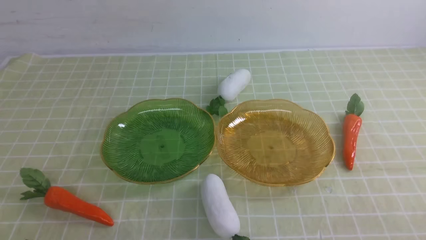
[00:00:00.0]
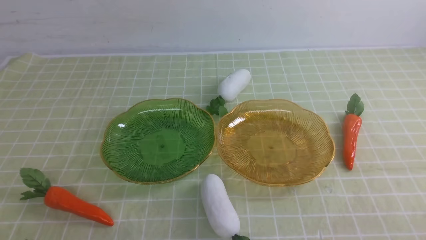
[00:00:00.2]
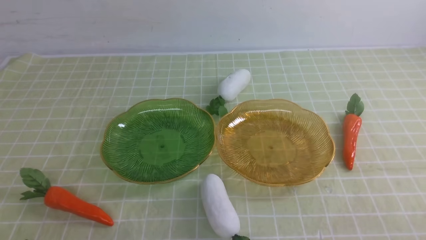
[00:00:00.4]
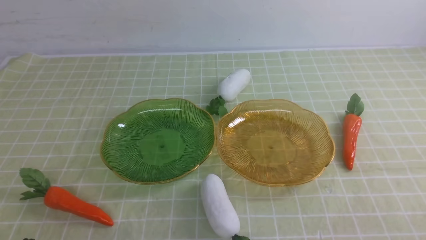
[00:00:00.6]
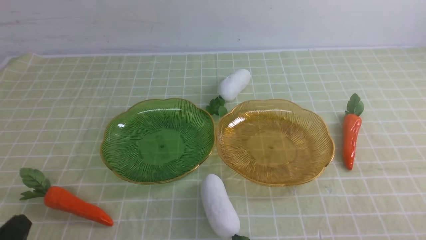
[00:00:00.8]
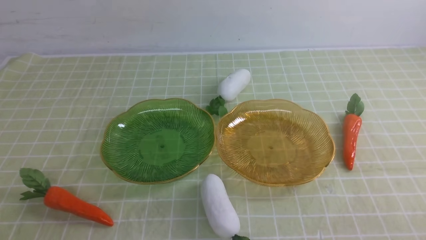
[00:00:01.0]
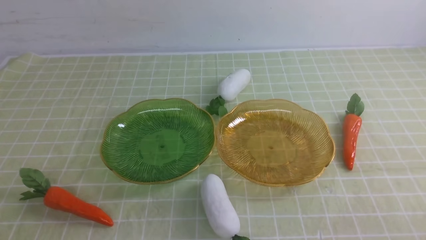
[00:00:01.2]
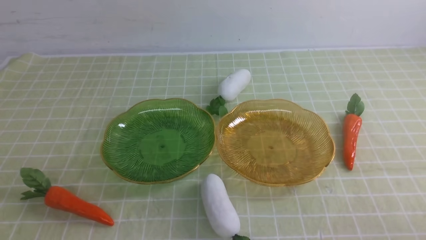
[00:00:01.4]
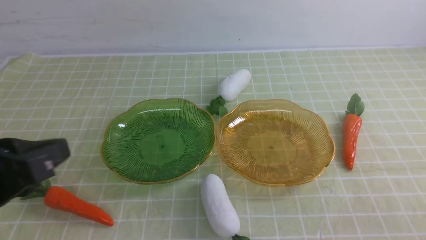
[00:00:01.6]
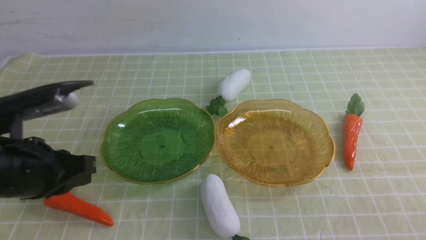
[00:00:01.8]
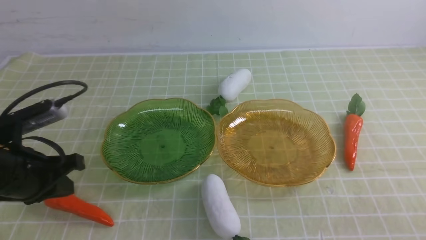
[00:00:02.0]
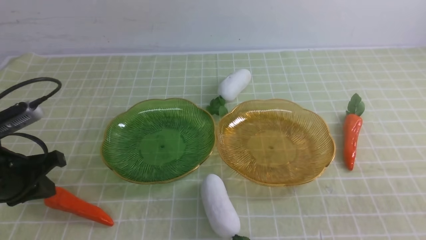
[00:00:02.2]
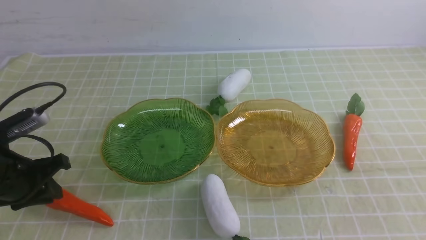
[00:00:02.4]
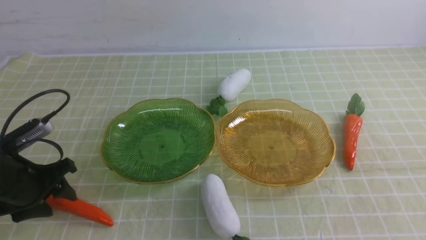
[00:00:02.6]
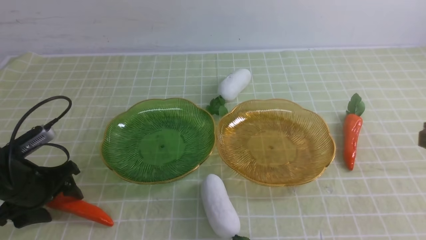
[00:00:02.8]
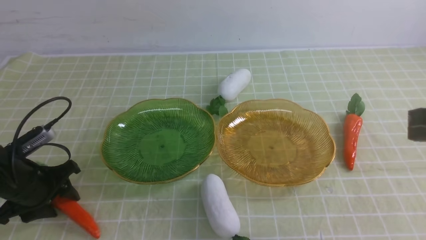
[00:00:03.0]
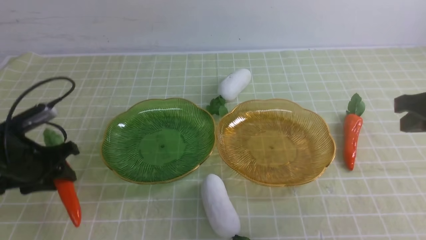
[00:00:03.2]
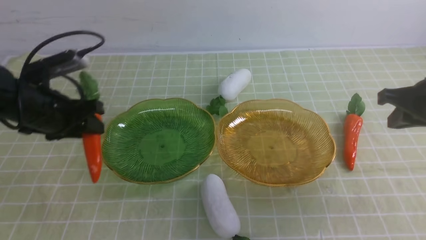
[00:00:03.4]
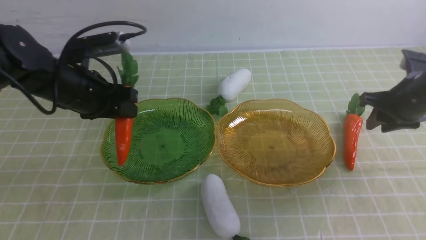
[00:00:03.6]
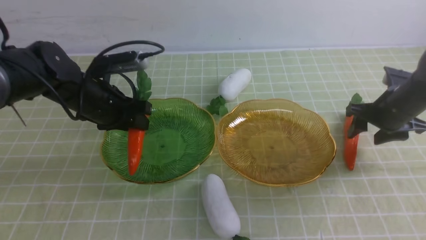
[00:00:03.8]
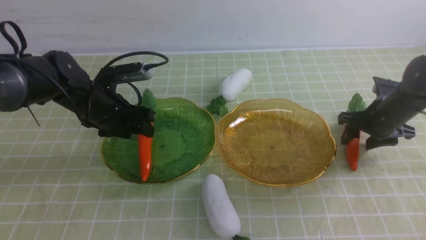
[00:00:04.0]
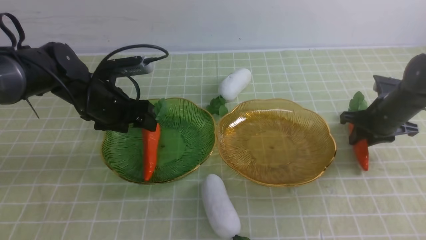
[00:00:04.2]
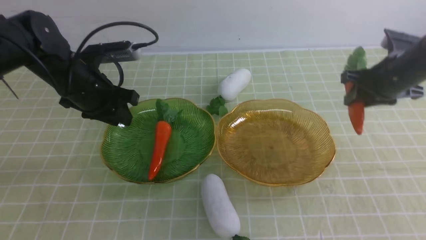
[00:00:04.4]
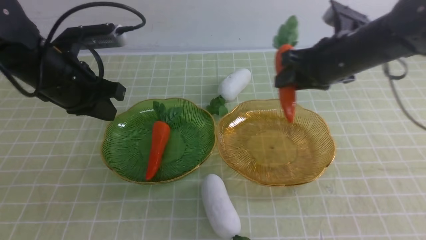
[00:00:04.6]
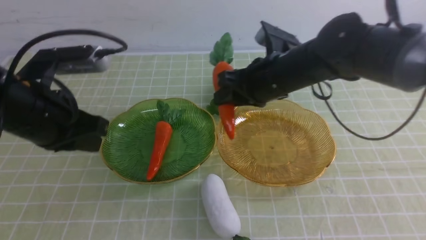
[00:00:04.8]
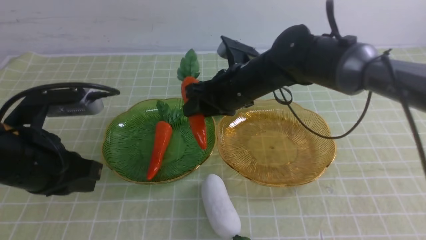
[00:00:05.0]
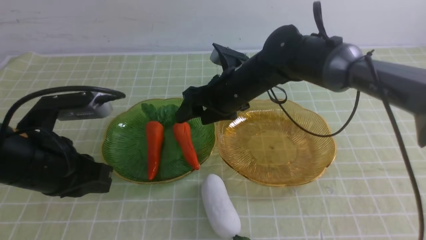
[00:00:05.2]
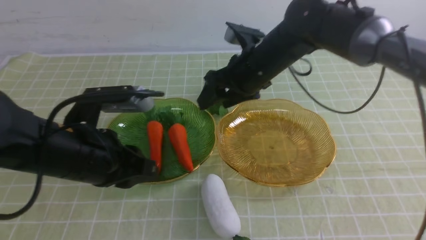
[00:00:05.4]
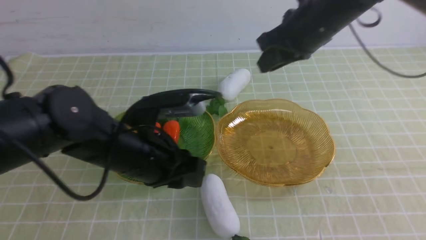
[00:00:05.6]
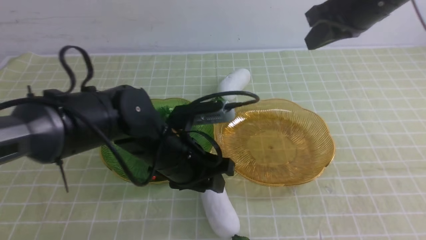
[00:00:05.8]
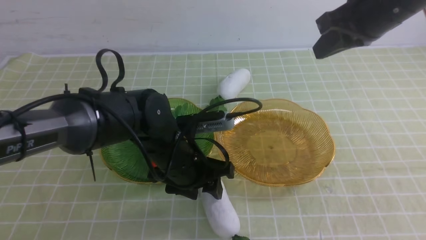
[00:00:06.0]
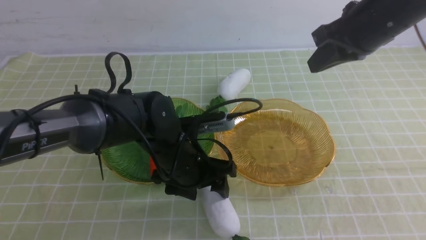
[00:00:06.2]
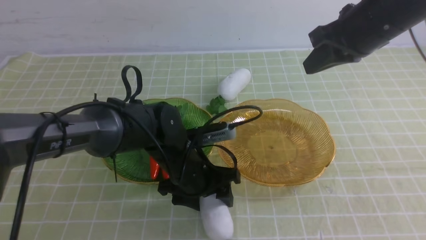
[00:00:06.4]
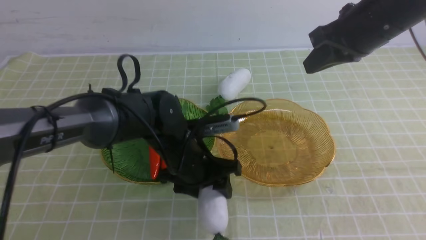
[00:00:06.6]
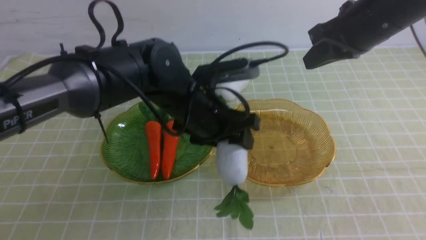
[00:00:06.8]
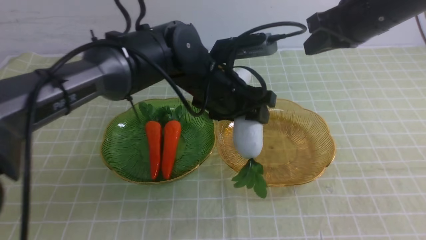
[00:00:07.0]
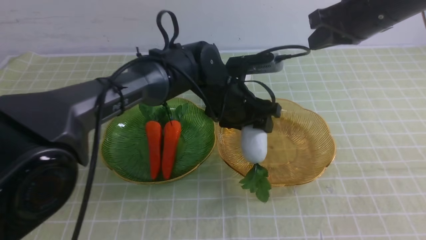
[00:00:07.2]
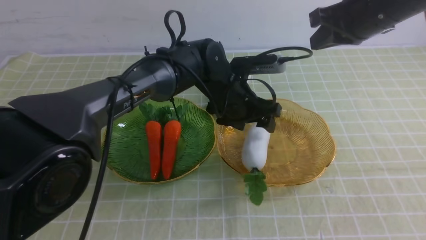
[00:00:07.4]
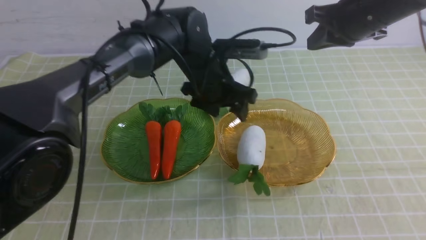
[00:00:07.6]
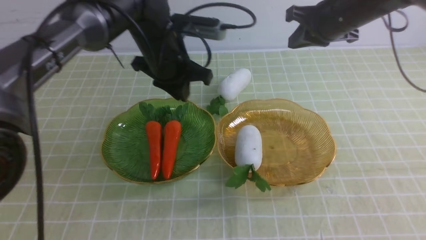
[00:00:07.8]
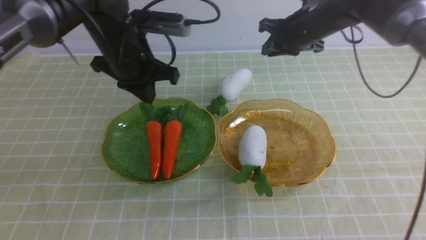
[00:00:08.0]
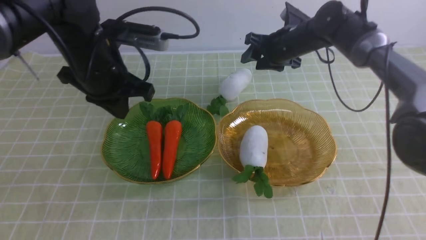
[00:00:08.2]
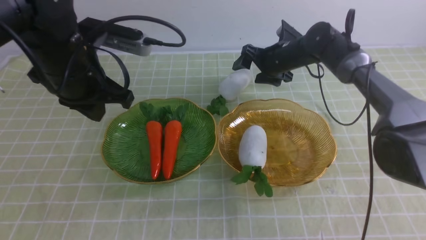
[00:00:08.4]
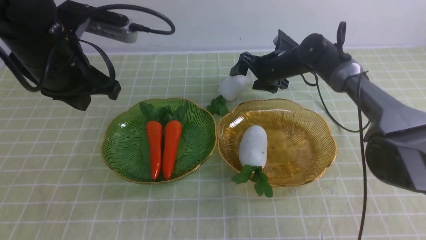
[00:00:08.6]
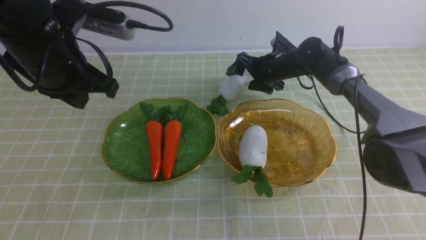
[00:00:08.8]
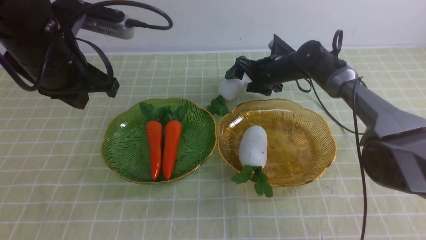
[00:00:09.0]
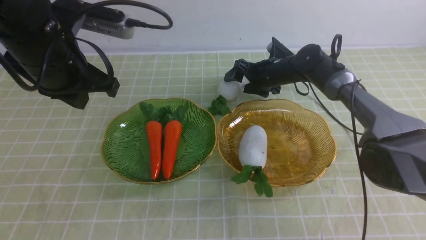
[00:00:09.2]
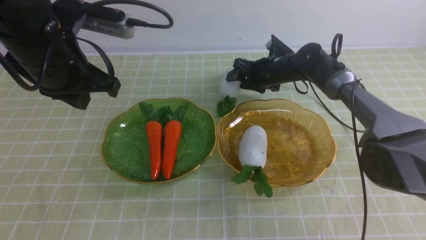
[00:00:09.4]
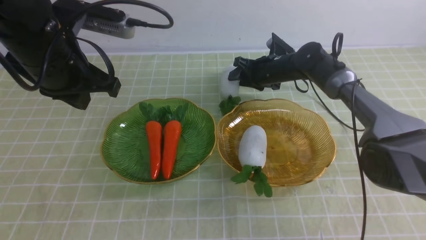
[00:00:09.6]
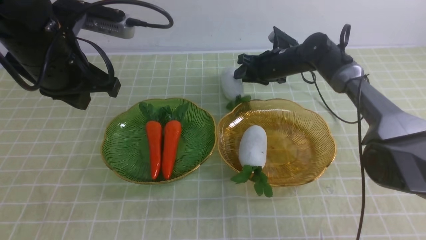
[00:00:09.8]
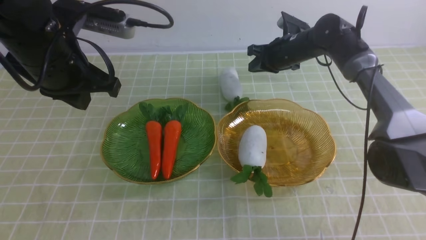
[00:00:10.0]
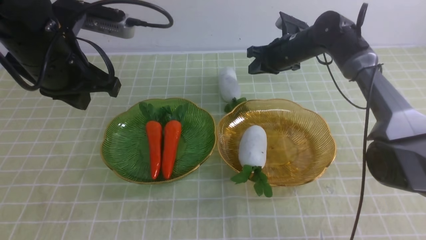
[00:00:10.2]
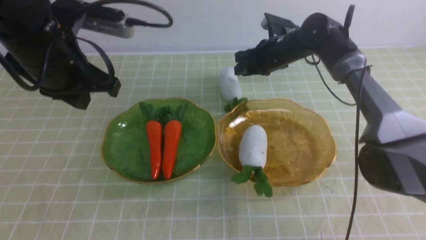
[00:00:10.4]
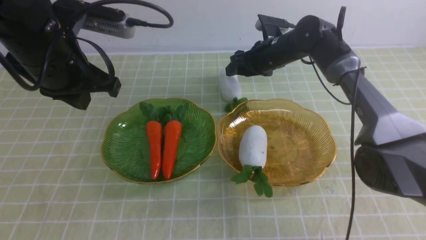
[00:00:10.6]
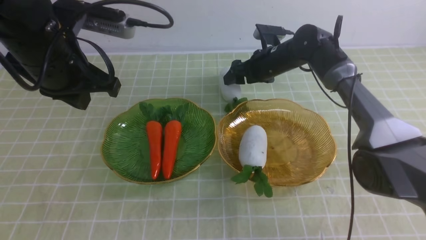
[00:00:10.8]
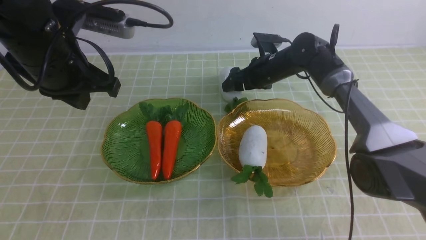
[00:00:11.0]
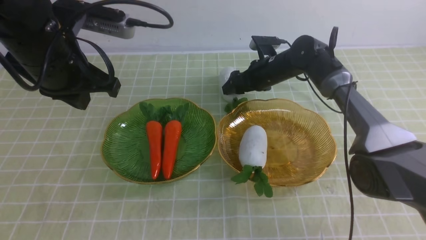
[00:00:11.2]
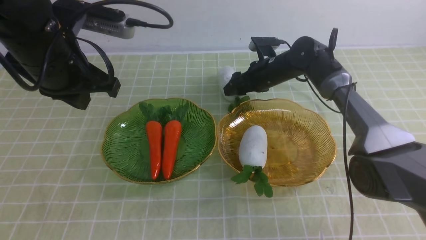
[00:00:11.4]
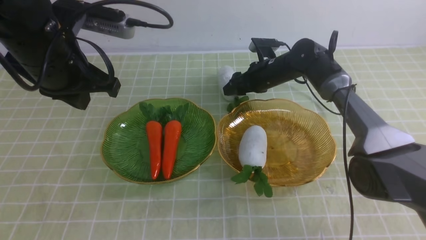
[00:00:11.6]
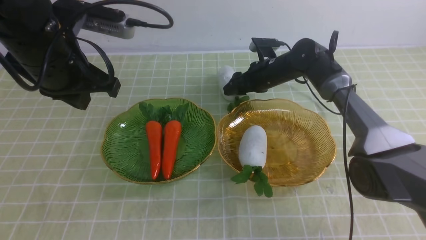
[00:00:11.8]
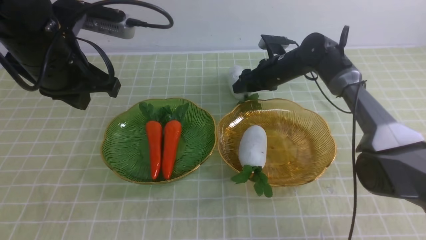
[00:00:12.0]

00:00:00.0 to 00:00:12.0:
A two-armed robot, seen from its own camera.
Step, 00:00:00.0 to 00:00:04.0: use the left arm to grab a carrot and put it into the left plate.
Step, 00:00:04.2 to 00:00:05.0: use the right arm to grab a carrot and put it into the left plate.
Step, 00:00:05.2 to 00:00:07.2: use the left arm to grab a radish and put it into the right plate.
00:00:00.0 to 00:00:01.6: The left gripper heads upward and forward, covering roughly 20 cm.
00:00:01.6 to 00:00:03.0: The left gripper travels downward, forward and to the left by roughly 20 cm, and opens.
00:00:03.0 to 00:00:04.4: The left gripper goes roughly 15 cm upward, to the right and forward, and closes; the right gripper is displaced forward by about 15 cm, and opens.
00:00:04.4 to 00:00:06.0: The right gripper goes about 10 cm upward, moves roughly 20 cm to the left and comes back, and closes. Meanwhile the left gripper is displaced to the right, downward and backward by about 20 cm, and opens.
00:00:06.0 to 00:00:07.6: The left gripper travels forward and upward by roughly 15 cm. The right gripper travels forward by about 5 cm.
00:00:07.6 to 00:00:09.0: The left gripper is displaced to the left, backward and upward by approximately 20 cm, and closes; the right gripper moves downward and forward, some 25 cm, and opens.
00:00:09.0 to 00:00:10.4: The right gripper is displaced upward by some 5 cm, and closes up.
00:00:10.4 to 00:00:12.0: The grippers move only a little.

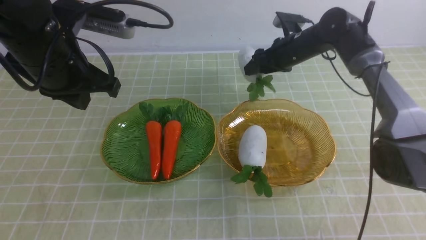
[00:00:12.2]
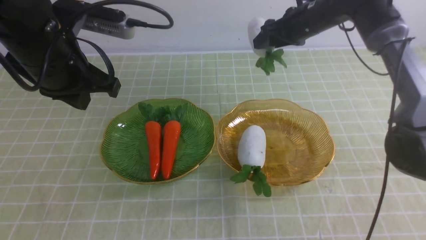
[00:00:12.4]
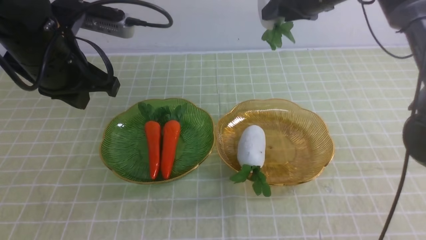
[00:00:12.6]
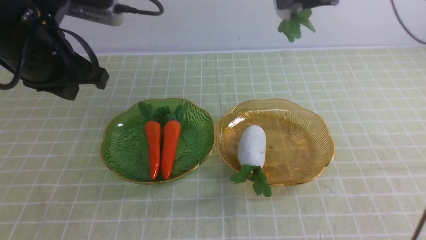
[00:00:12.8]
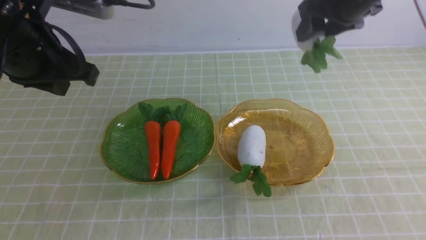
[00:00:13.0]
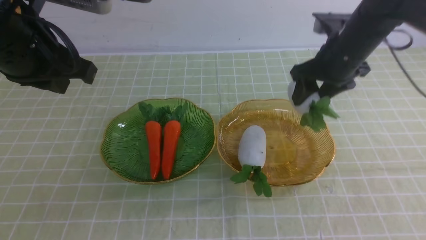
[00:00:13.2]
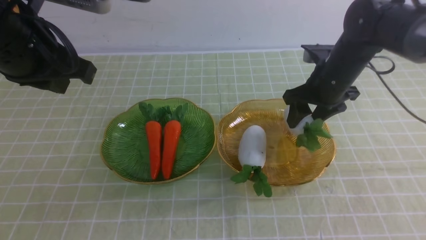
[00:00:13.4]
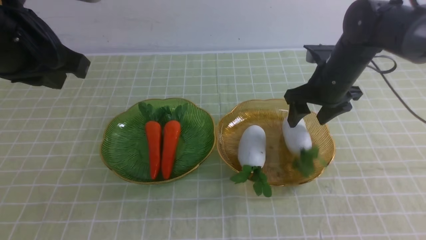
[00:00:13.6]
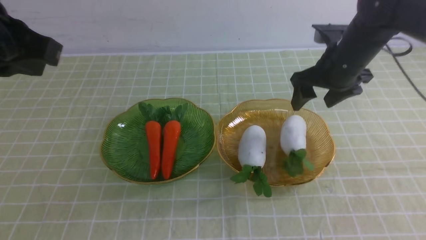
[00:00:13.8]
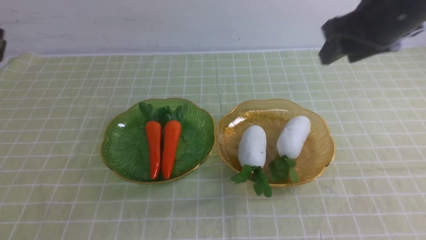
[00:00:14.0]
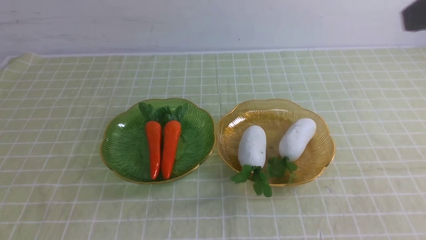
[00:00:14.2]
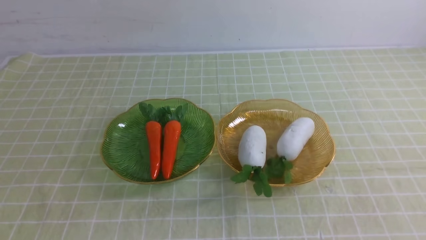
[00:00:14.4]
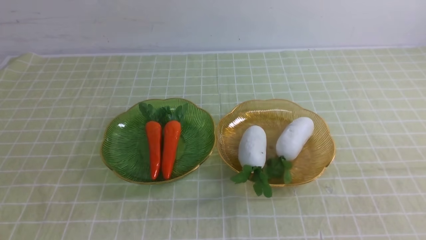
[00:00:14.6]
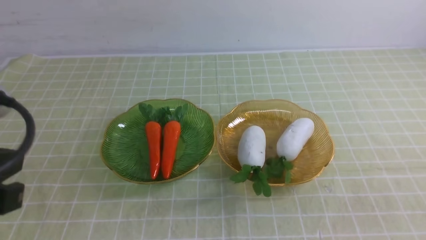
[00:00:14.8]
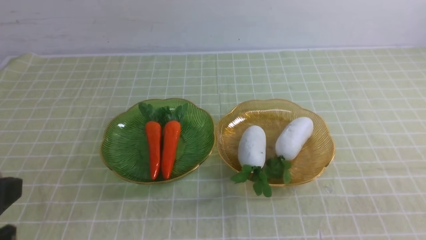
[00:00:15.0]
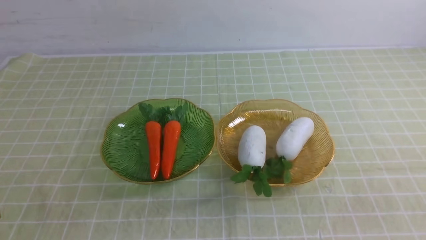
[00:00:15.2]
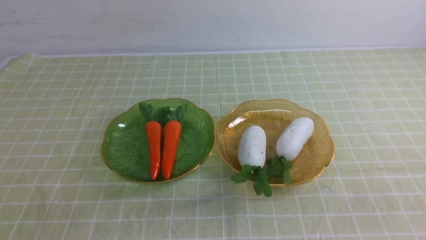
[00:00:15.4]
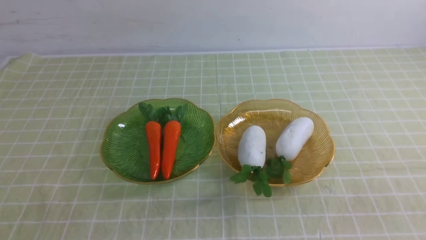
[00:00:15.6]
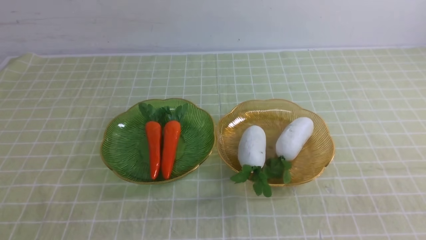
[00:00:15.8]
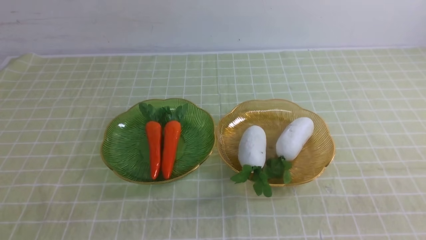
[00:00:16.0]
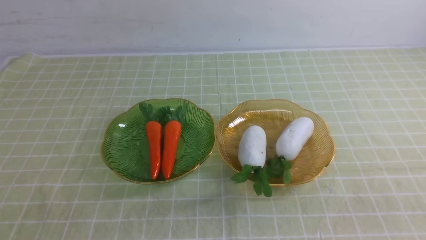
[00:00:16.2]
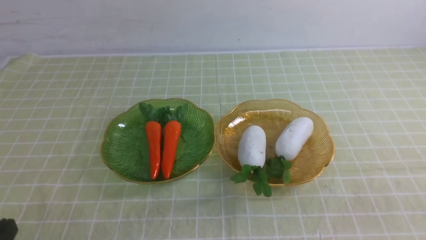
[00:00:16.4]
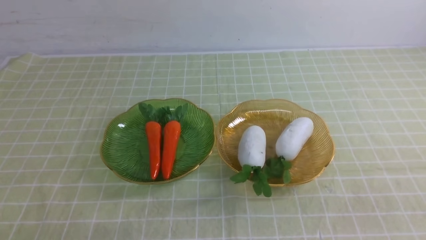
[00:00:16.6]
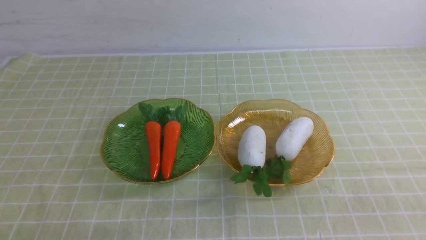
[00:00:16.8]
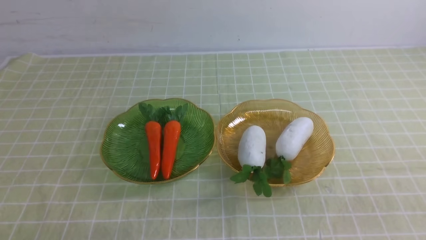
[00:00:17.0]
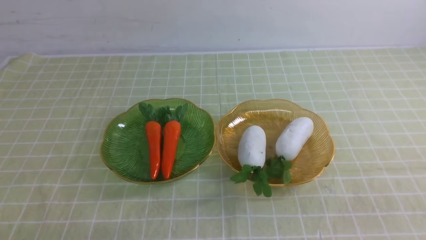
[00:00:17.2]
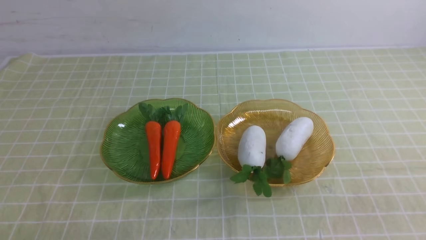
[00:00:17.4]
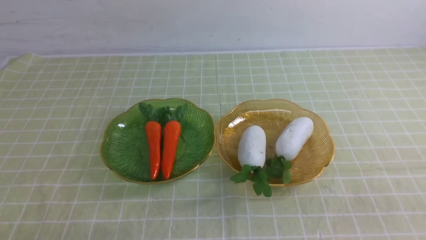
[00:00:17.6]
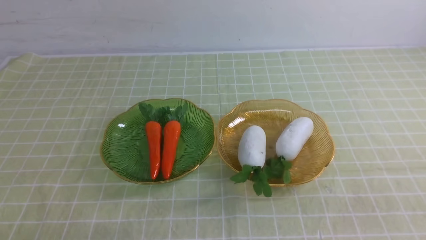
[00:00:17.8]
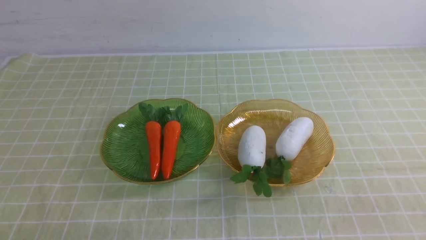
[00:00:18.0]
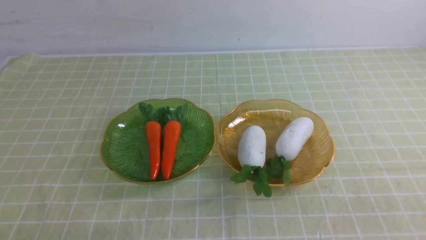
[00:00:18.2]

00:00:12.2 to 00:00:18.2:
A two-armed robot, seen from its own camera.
00:00:12.2 to 00:00:13.8: The grippers both shift backward and upward by about 15 cm.
00:00:13.8 to 00:00:15.2: The right gripper travels backward by roughly 35 cm, and closes up. Meanwhile the left gripper shifts approximately 20 cm backward and downward.
